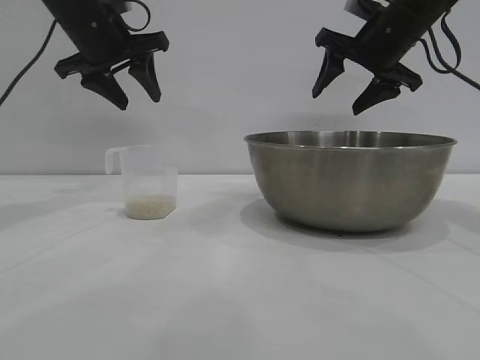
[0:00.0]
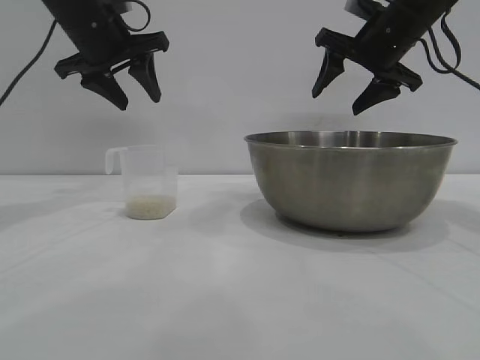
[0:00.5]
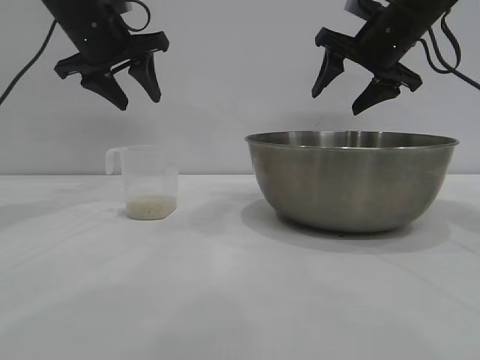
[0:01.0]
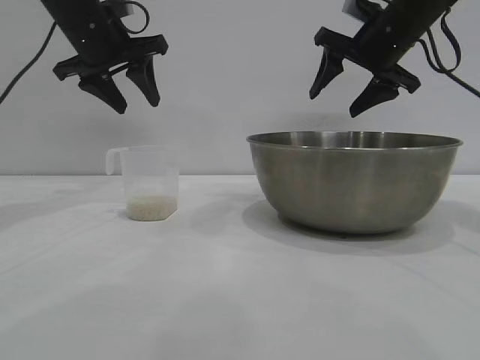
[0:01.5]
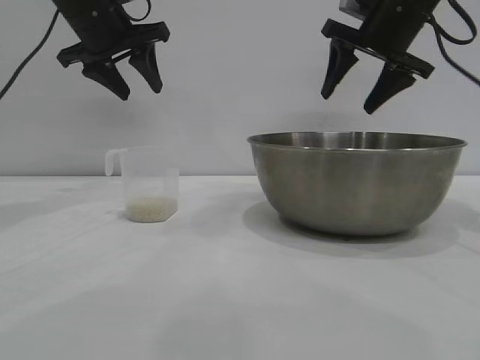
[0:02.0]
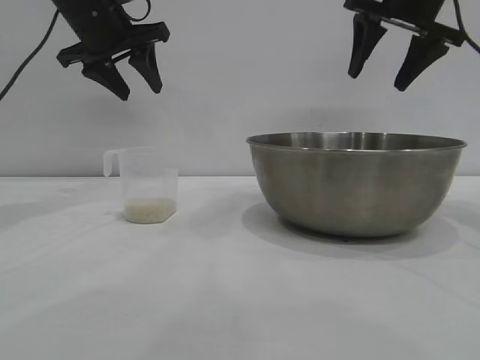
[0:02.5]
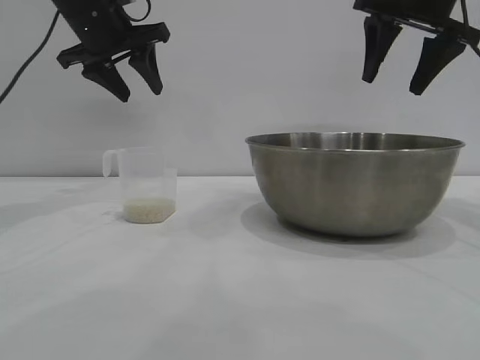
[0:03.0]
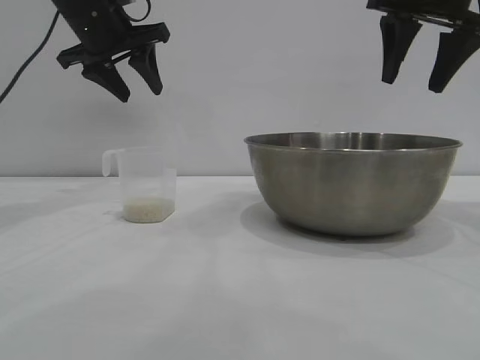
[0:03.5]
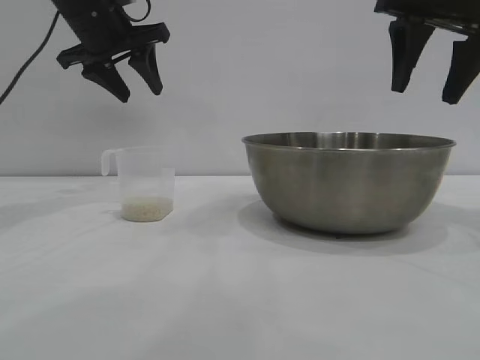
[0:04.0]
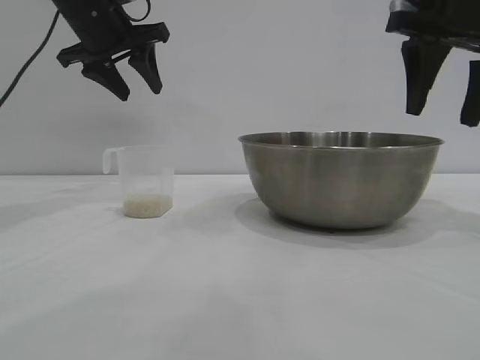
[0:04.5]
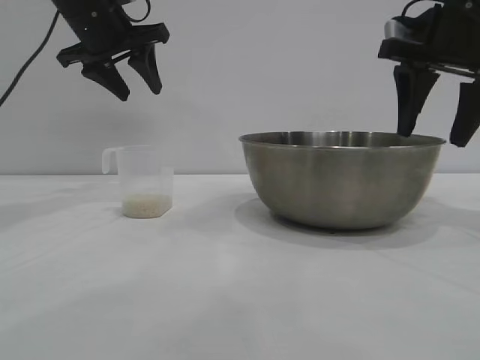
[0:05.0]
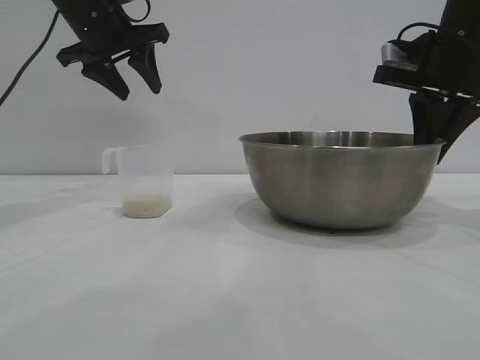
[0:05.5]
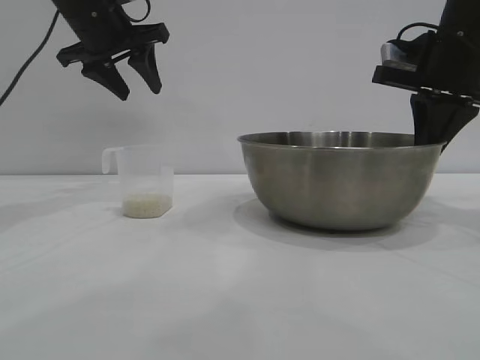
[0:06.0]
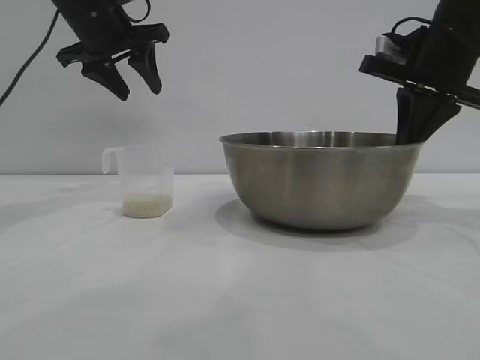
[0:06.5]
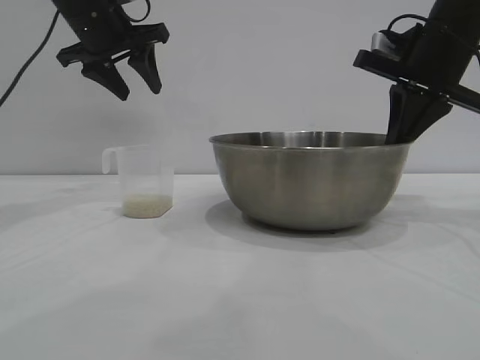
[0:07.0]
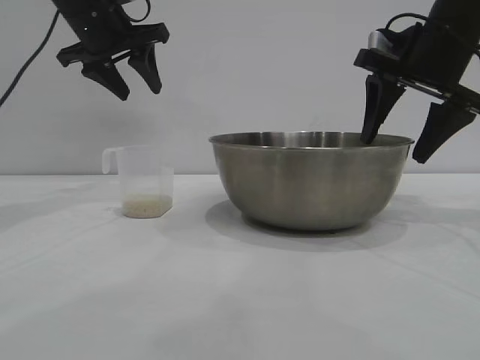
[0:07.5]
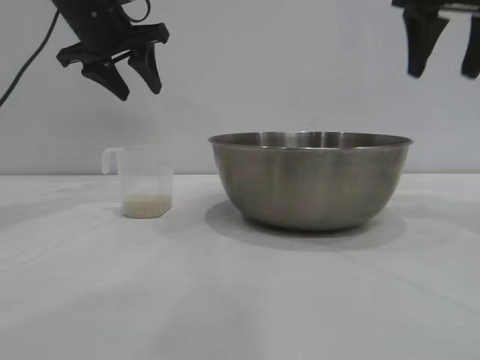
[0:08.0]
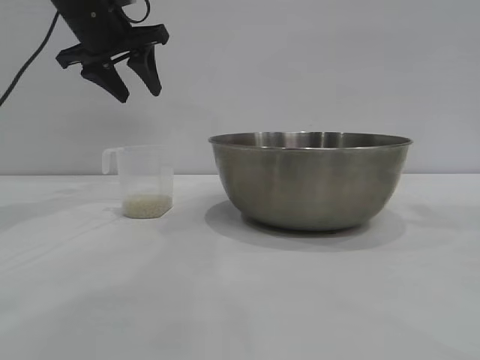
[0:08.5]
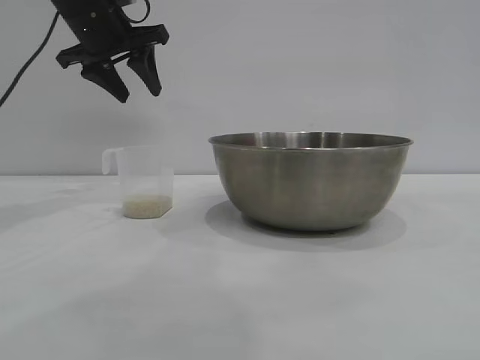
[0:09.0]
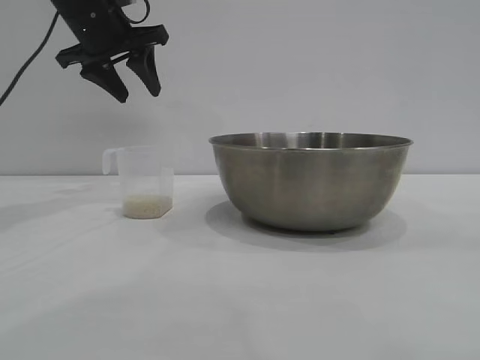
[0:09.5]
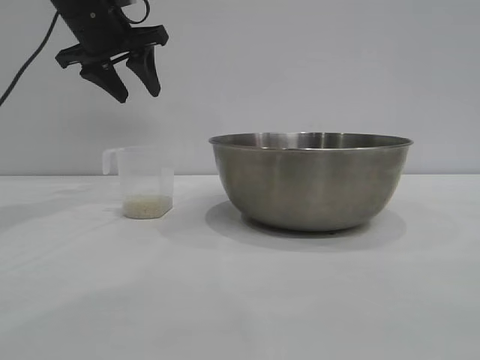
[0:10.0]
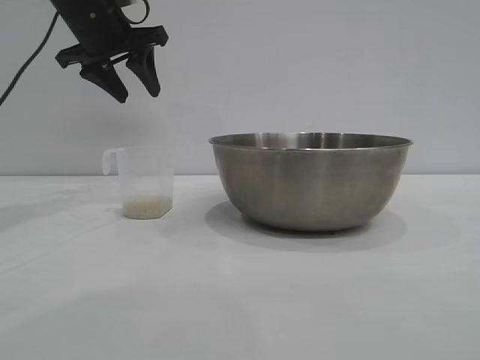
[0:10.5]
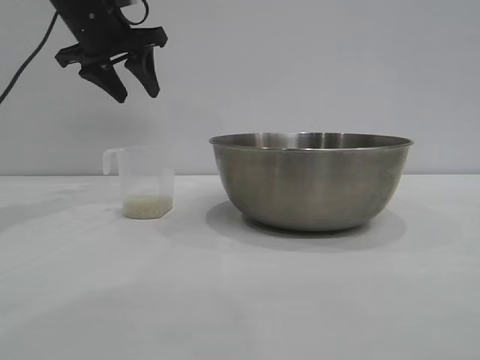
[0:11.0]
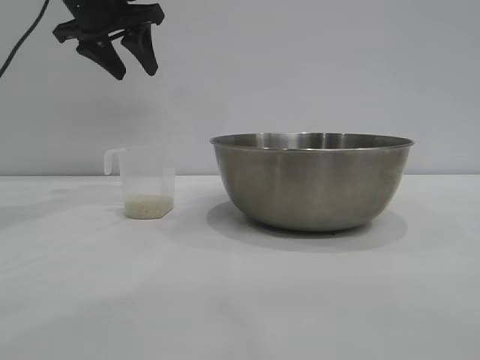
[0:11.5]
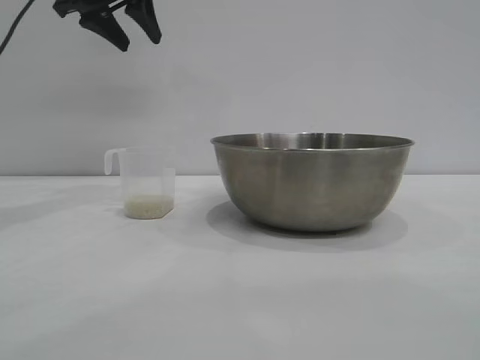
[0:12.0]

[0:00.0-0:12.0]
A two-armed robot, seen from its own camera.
Task of the whole recording: the right gripper grasp the rice container and place it in the center of the table, the left gripper grasp the rice scoop and pour the rice into the rice container.
Step, 0:00.0 to 0:07.5: Move the bowl to the center of view with the right gripper.

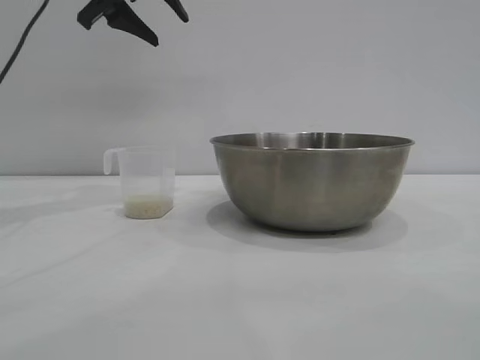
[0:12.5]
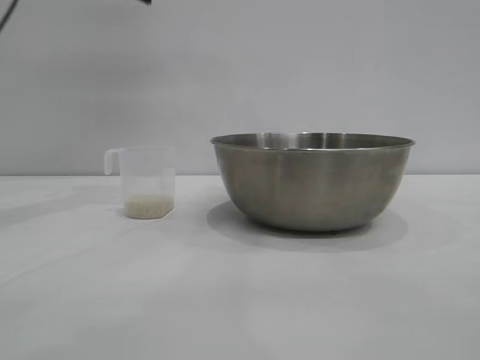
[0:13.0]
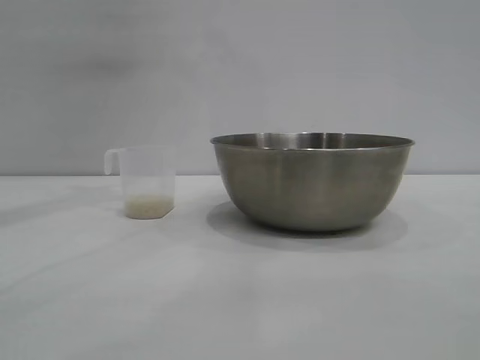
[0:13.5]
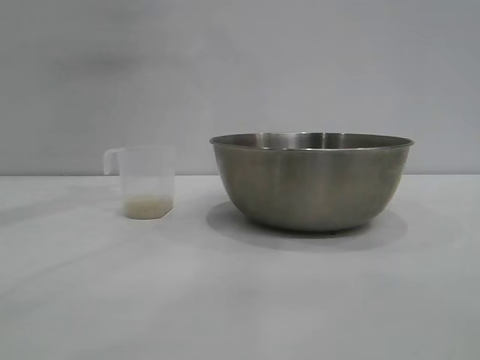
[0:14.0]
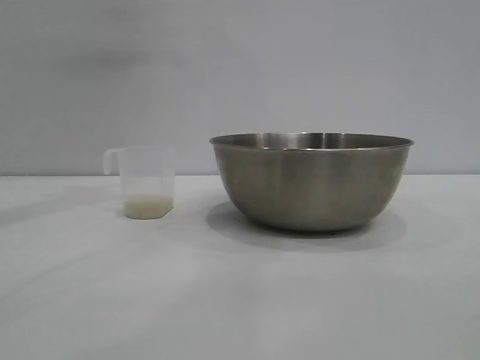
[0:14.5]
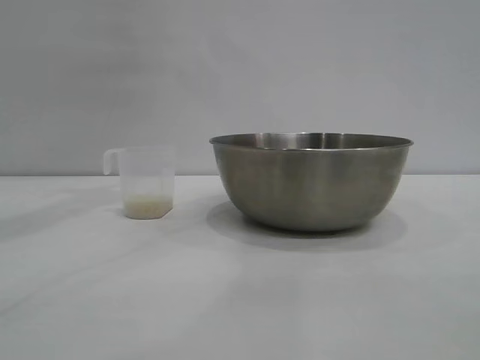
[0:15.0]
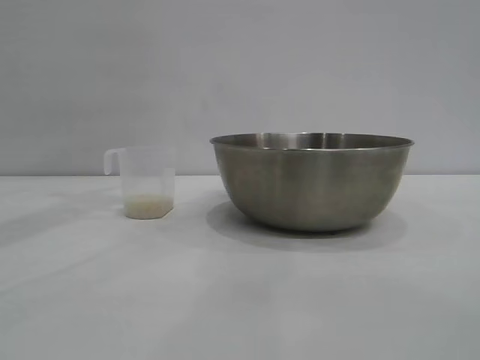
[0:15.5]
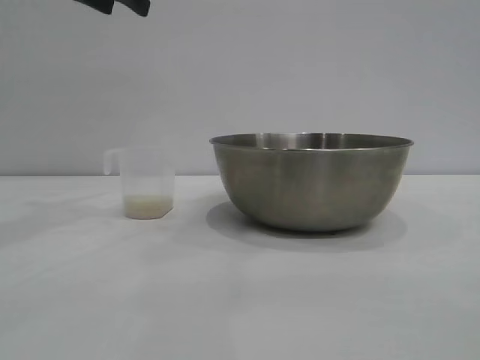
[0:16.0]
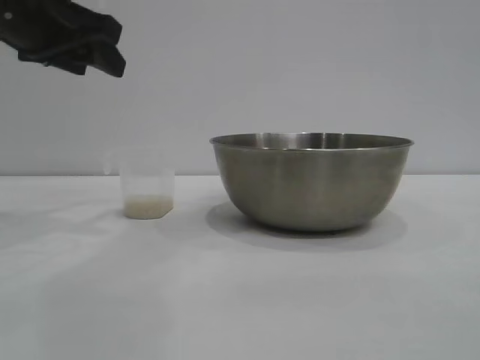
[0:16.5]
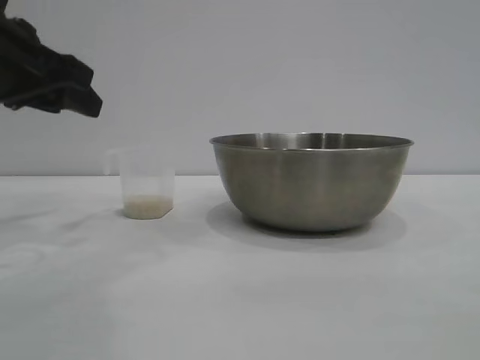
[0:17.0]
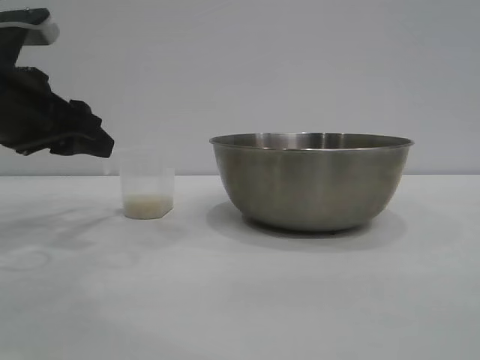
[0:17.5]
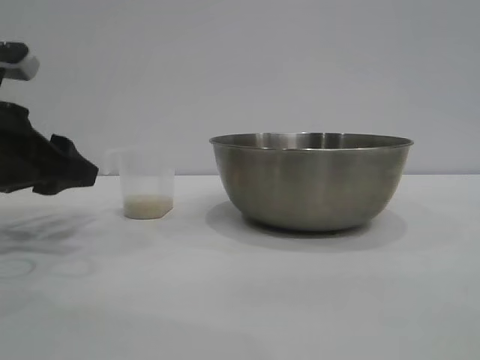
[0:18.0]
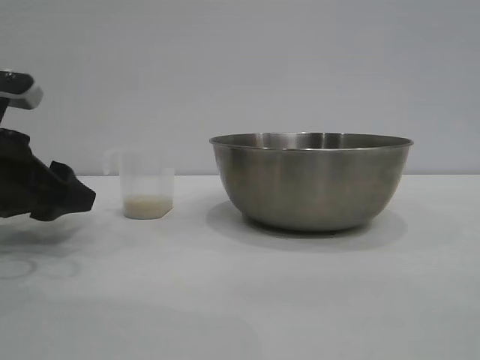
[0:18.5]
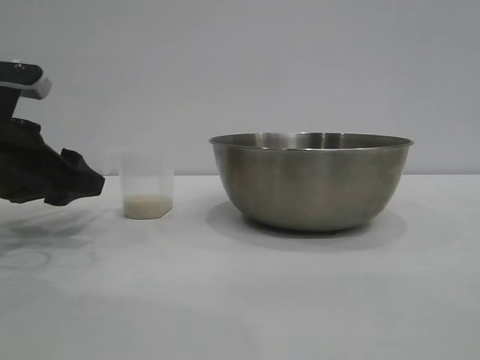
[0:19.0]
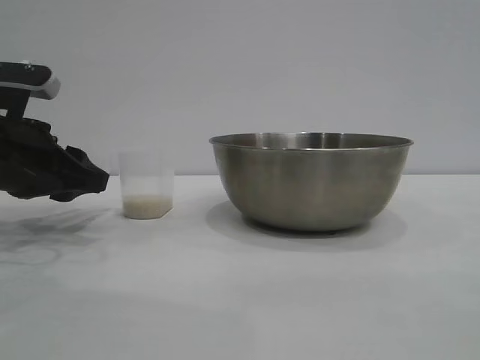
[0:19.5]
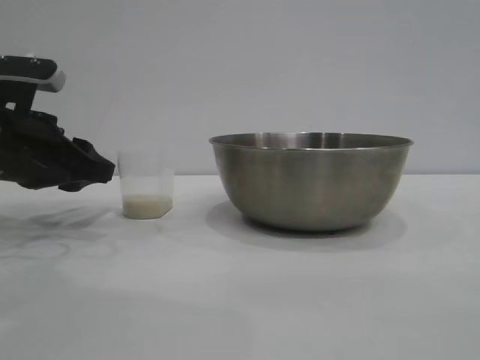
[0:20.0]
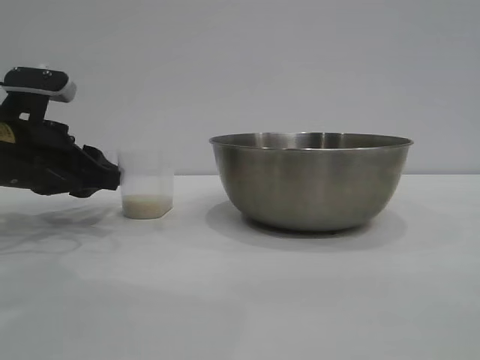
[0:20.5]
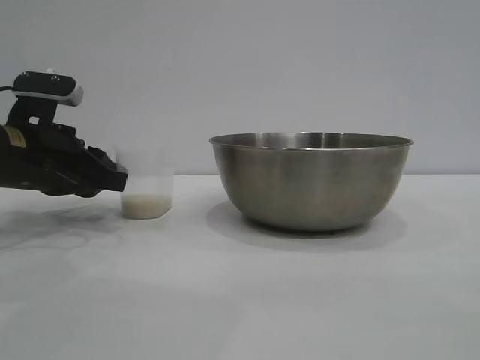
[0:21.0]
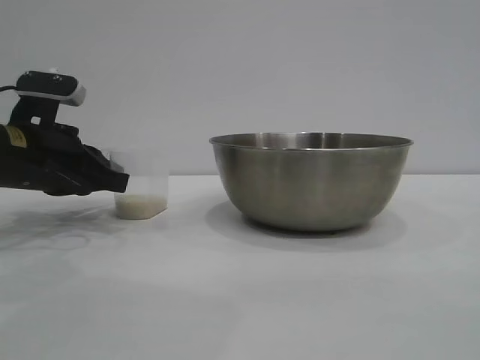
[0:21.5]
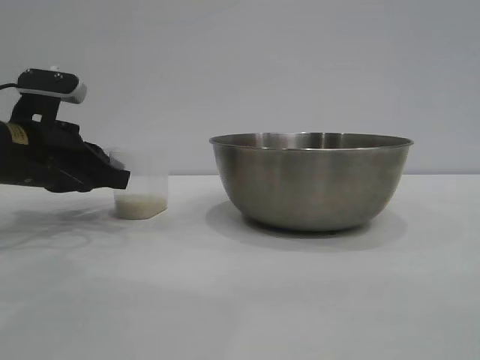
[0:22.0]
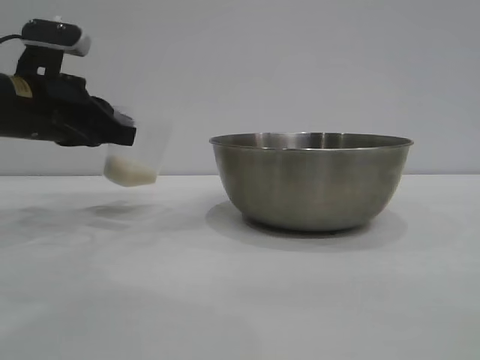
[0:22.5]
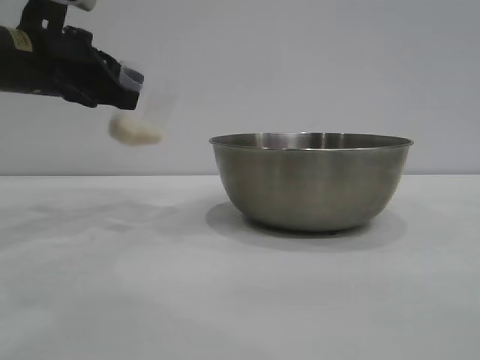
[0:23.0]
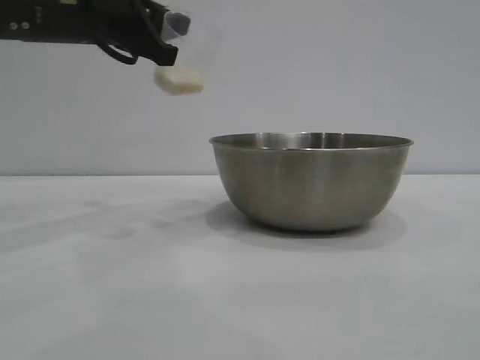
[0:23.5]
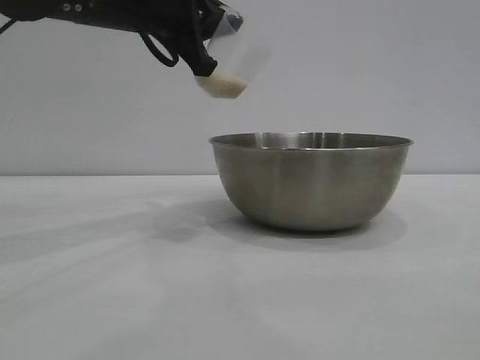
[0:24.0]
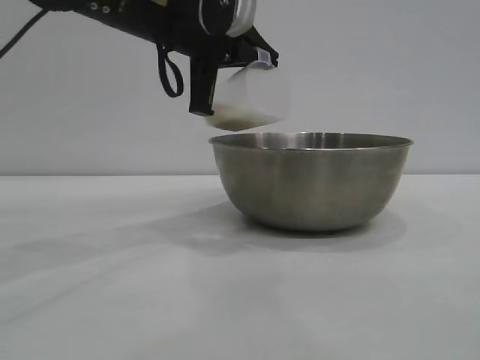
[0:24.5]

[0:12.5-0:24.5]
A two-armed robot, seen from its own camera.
Task of the whole recording: the right gripper grasp the rice container and place it in the center of the table, the left gripper grasp the rice scoop and pour the rice into the rice container.
Step, 0:12.5 to 0:22.5: Pick up the cup with rice in it with the left gripper.
